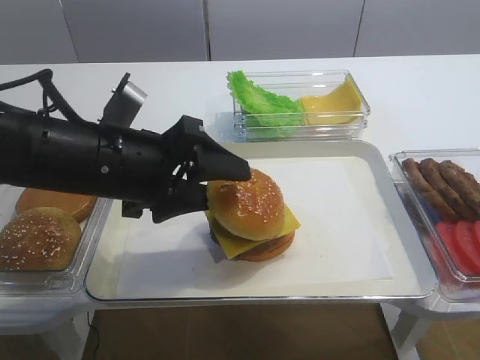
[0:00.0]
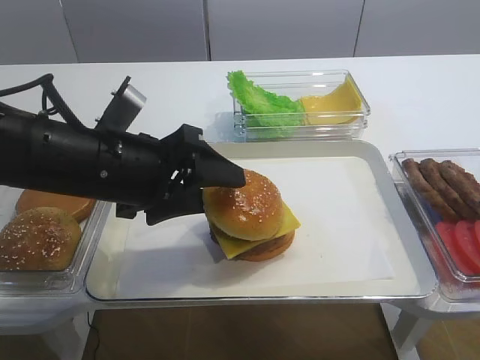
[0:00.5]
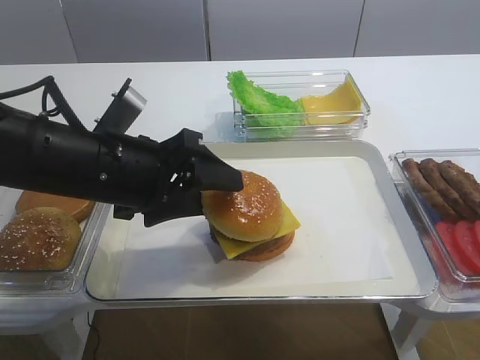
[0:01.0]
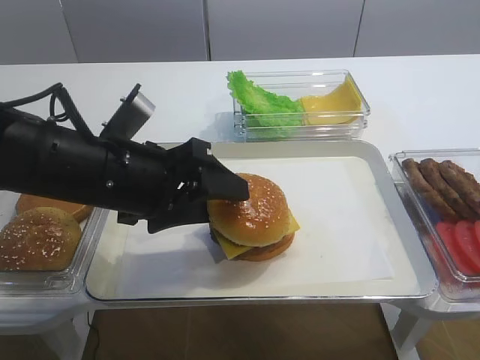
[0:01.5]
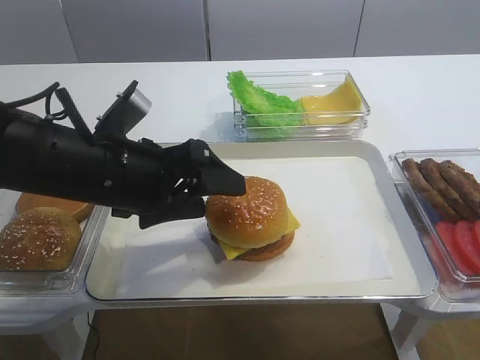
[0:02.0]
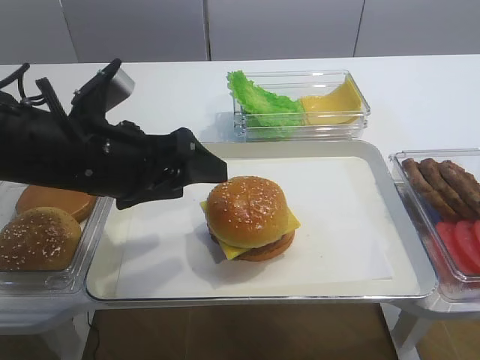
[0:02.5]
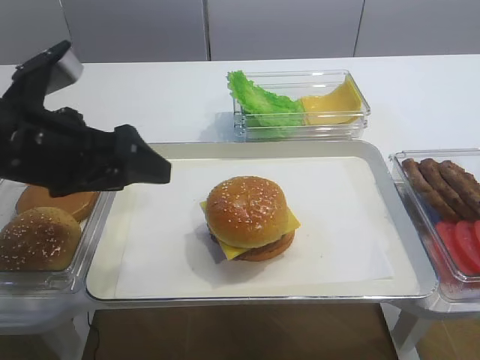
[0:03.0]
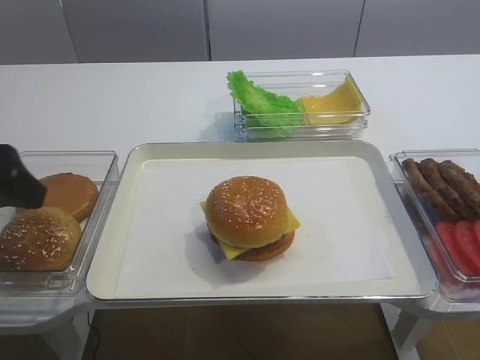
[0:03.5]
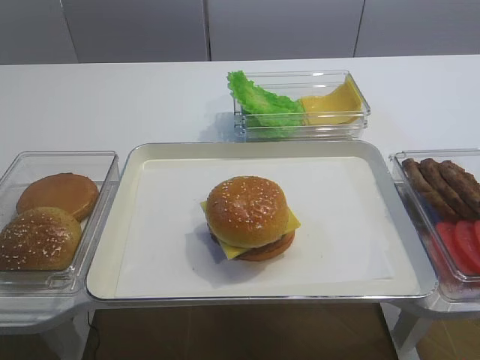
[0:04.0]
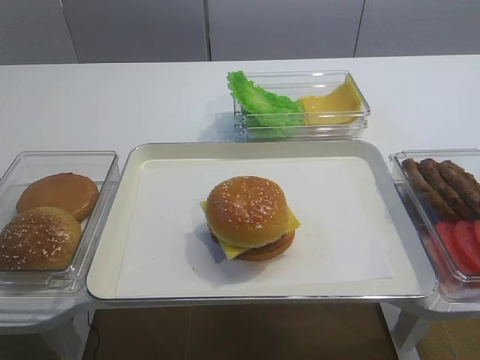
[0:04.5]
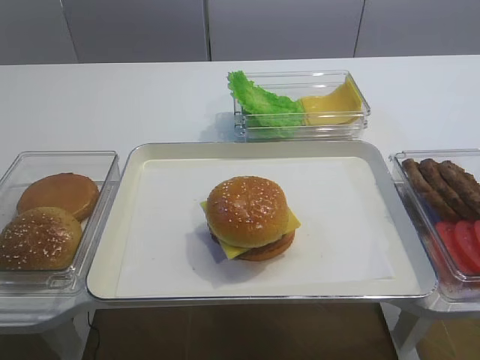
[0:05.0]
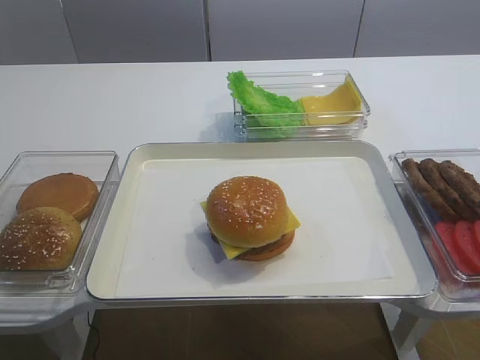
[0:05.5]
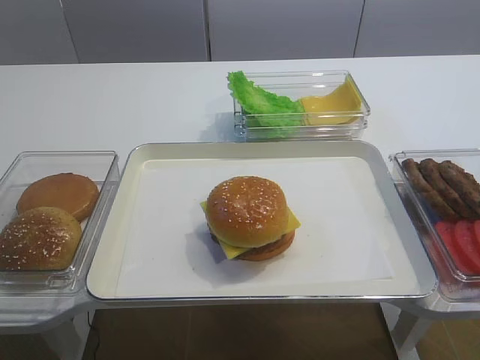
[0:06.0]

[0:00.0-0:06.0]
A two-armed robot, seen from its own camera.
Step, 0:00.0 to 0:02.0: Place the hamburger lid on the cheese slice with the left gripper.
0:00.0 to 0:02.0: The grippers make only small movements.
0:02.0 to 0:04.0: The left gripper goes roughly 25 cm to the left, backward and upward.

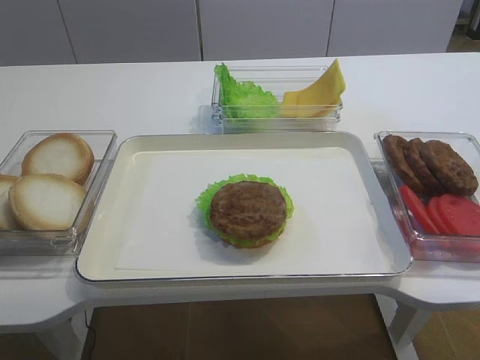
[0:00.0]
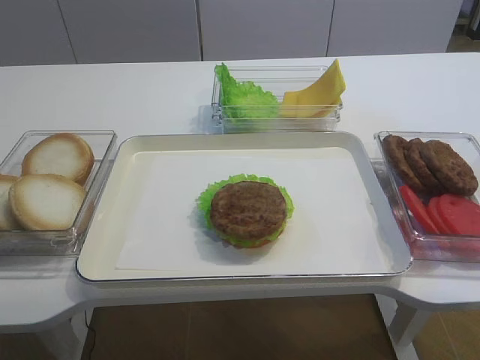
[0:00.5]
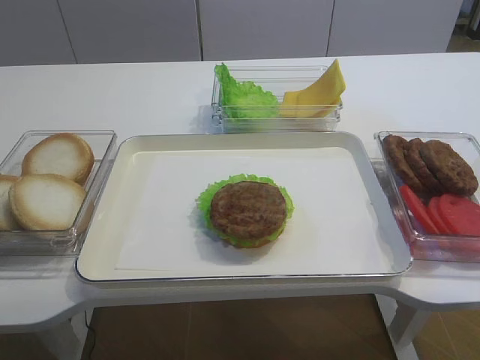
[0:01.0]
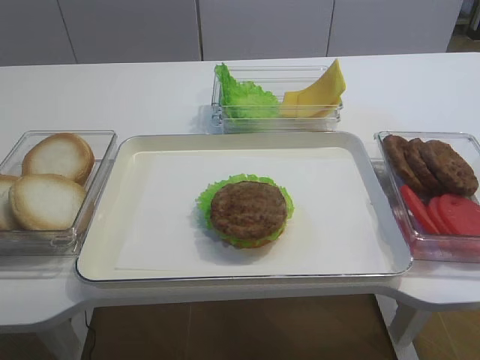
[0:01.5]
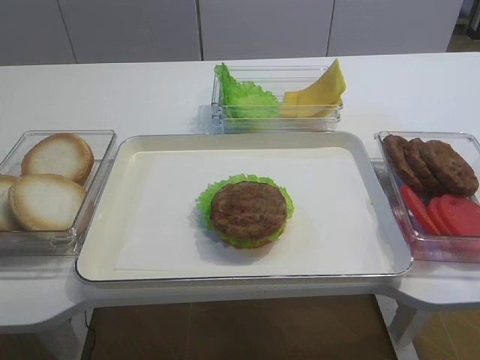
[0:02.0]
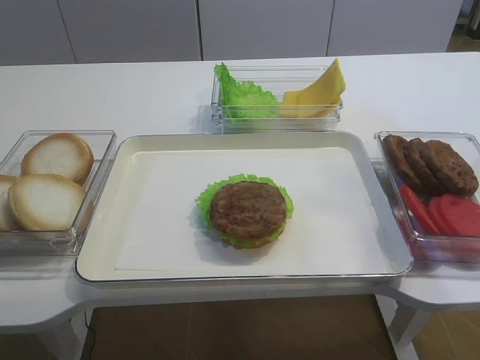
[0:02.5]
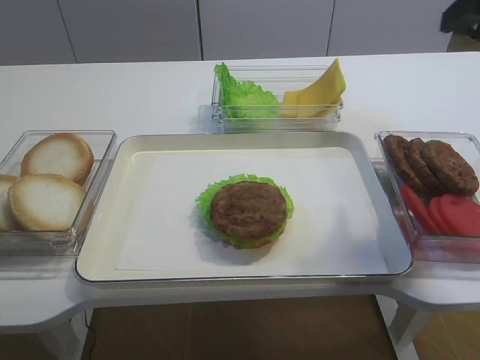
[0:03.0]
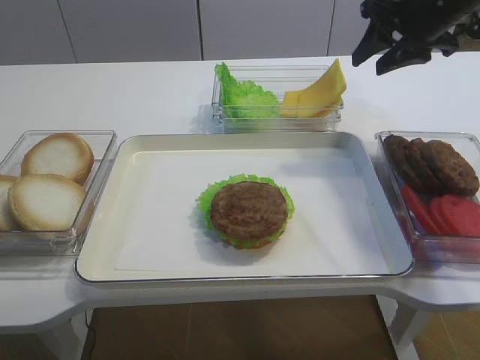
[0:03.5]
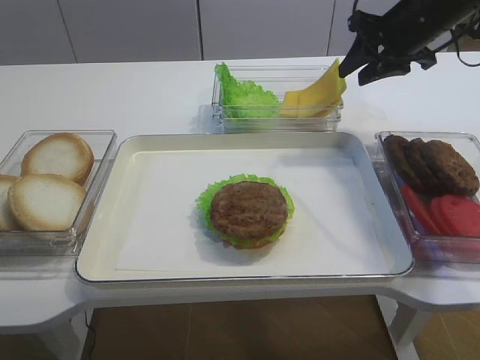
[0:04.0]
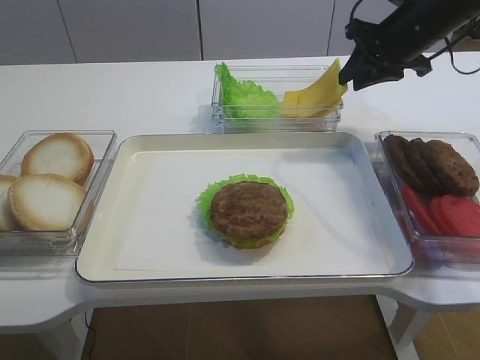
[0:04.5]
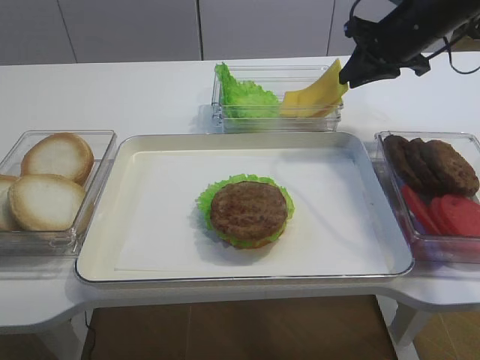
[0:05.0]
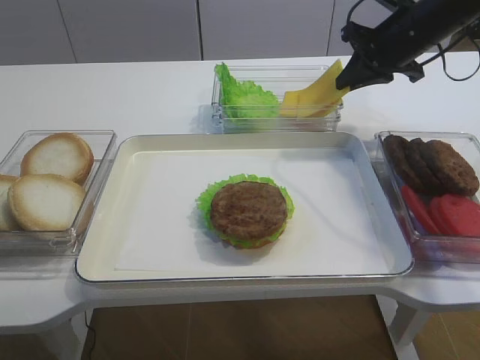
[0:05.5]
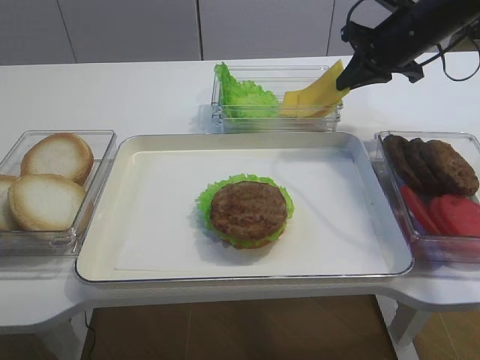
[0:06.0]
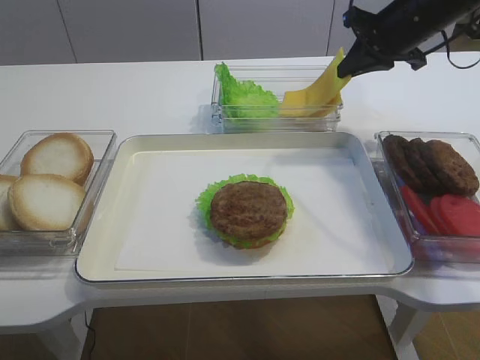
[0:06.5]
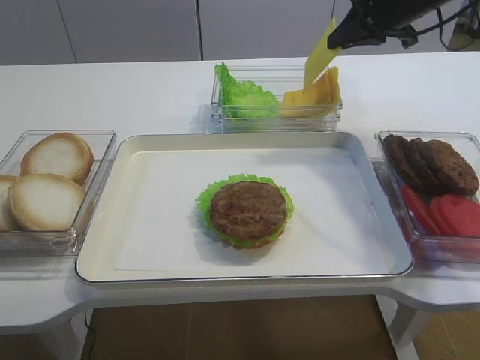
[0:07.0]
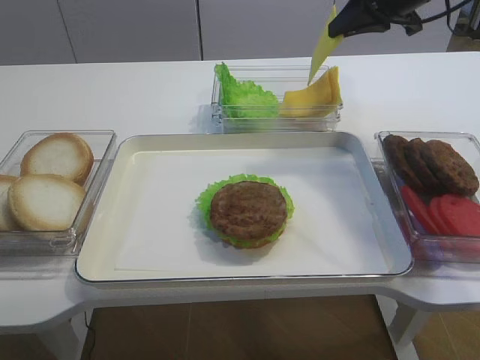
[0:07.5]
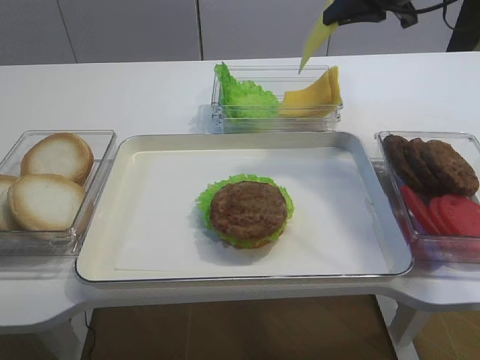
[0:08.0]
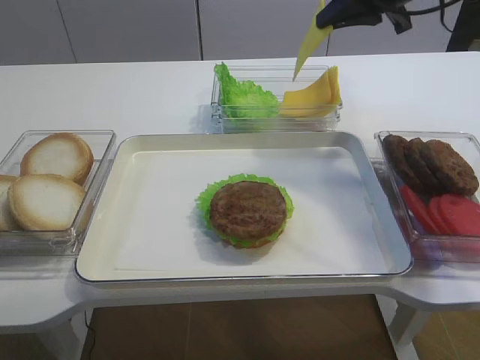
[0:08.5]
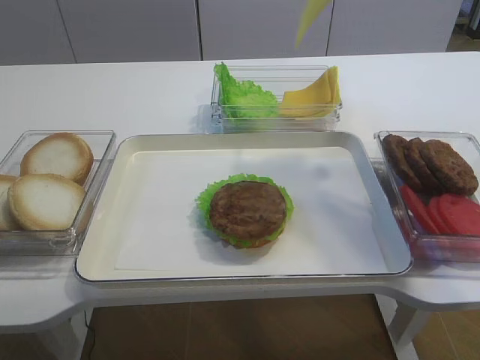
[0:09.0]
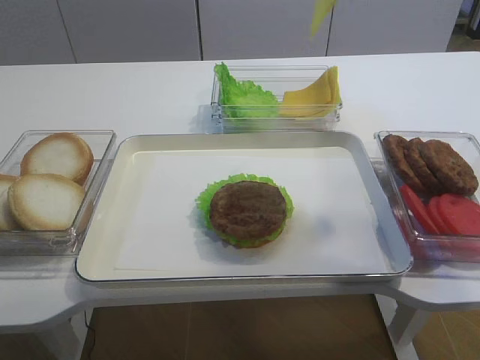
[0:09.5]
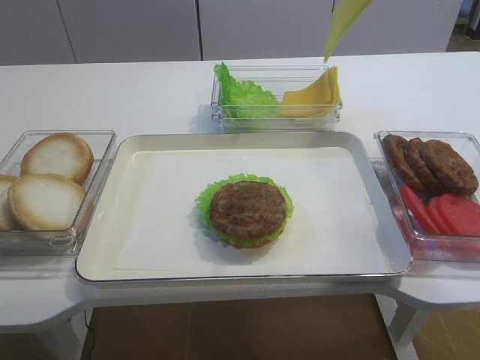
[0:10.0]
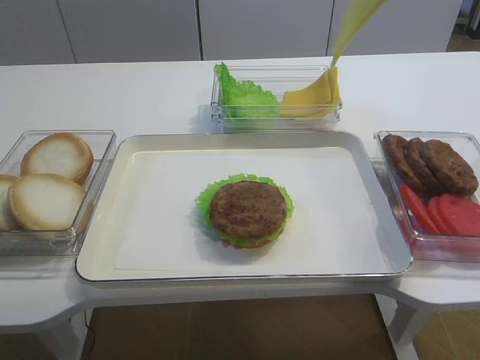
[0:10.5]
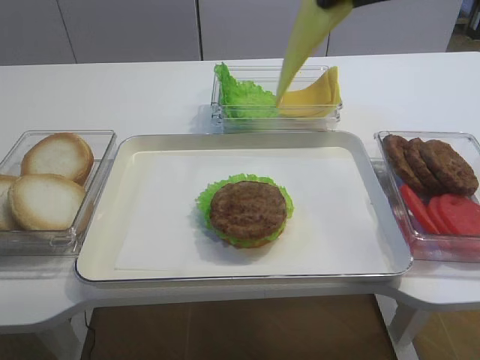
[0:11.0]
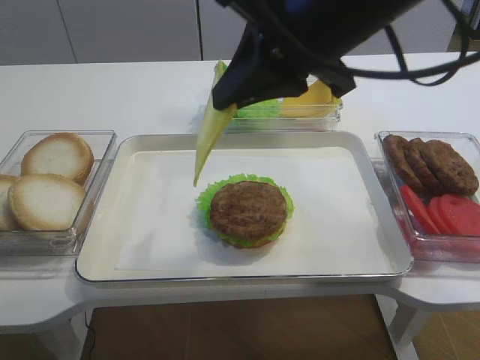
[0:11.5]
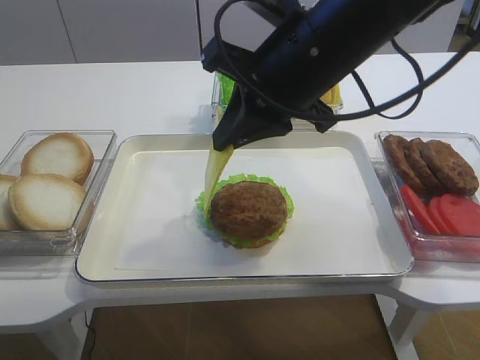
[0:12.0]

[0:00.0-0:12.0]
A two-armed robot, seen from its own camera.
Step, 0:00.0 to 0:07.0: Pick up the cheese slice with the right gripper.
0:02.0 to 0:04.0: The right gripper heads forward, covering about 50 cm.
0:04.0 to 0:06.0: The right gripper closes up.
0:06.0 to 0:08.0: The right gripper moves upward, approximately 10 cm.
0:08.0 to 0:10.0: The right gripper is displaced backward and upward by some 20 cm.
0:10.0 to 0:12.0: The right gripper shifts some 20 cm to the left and downward.

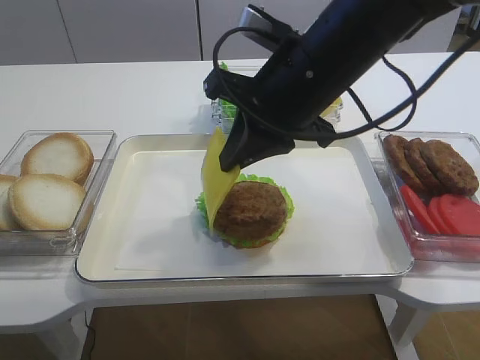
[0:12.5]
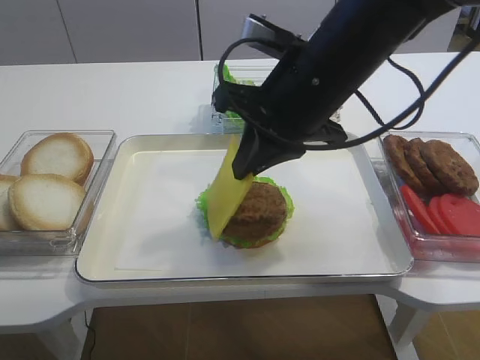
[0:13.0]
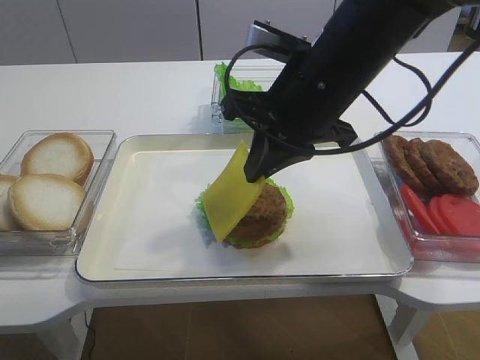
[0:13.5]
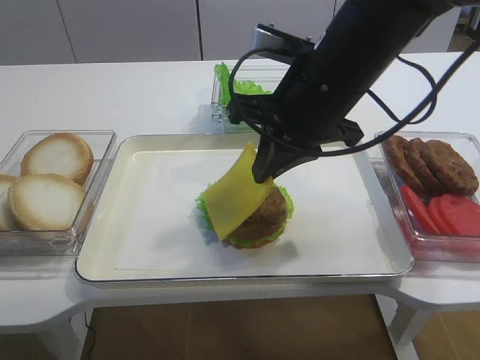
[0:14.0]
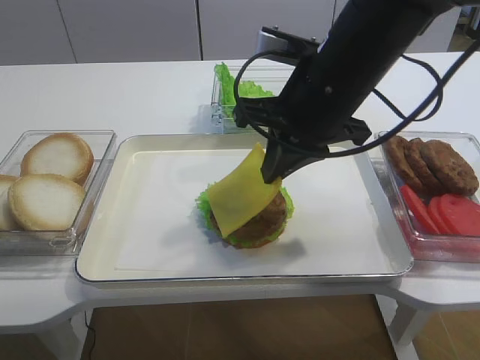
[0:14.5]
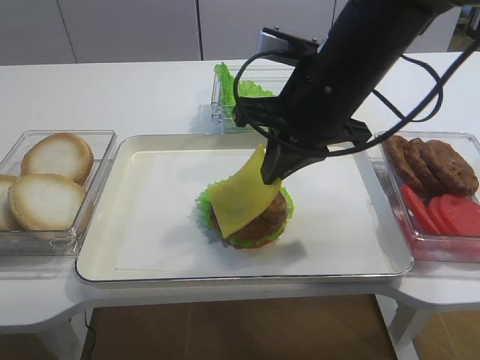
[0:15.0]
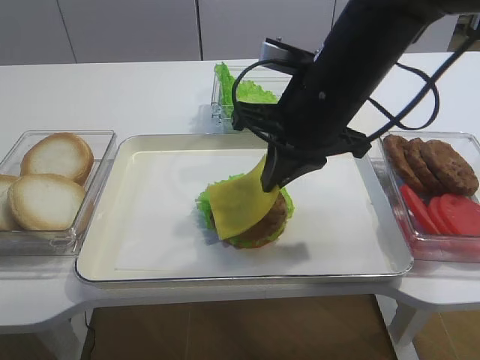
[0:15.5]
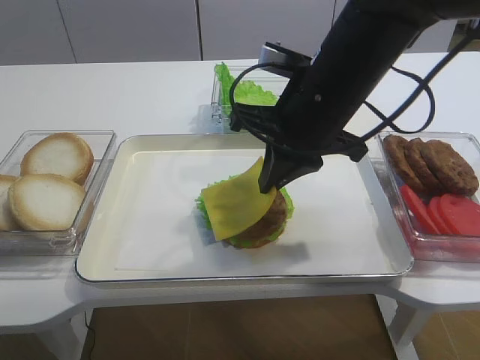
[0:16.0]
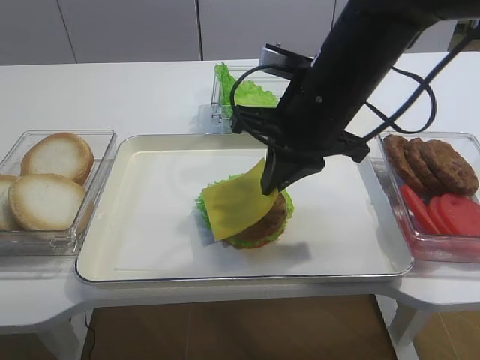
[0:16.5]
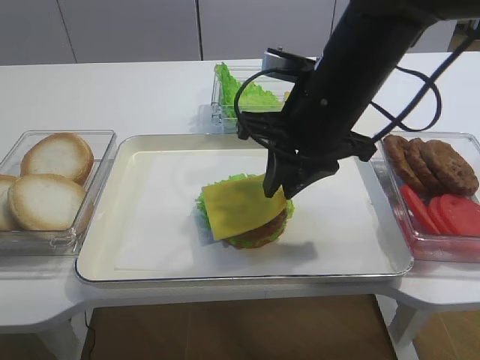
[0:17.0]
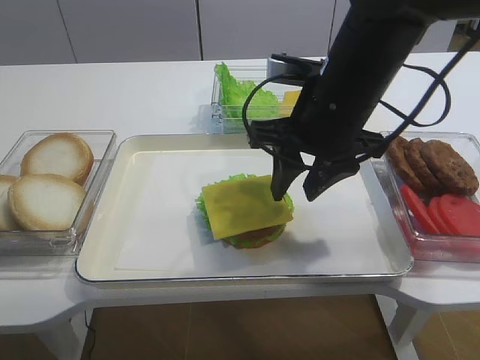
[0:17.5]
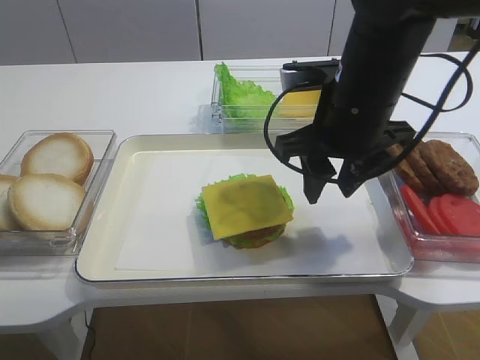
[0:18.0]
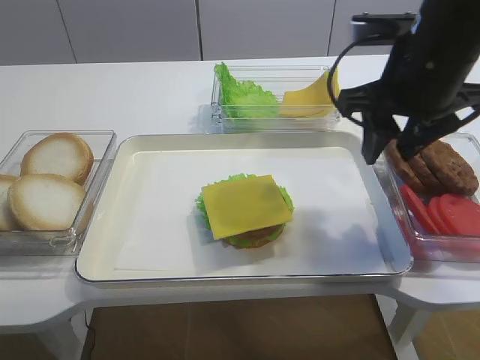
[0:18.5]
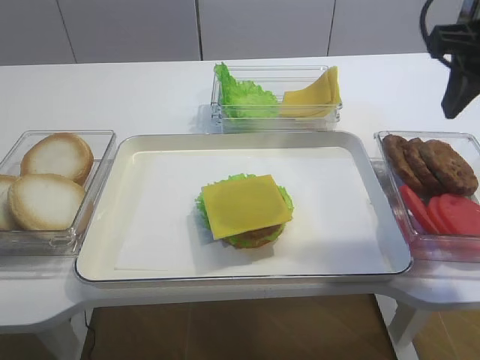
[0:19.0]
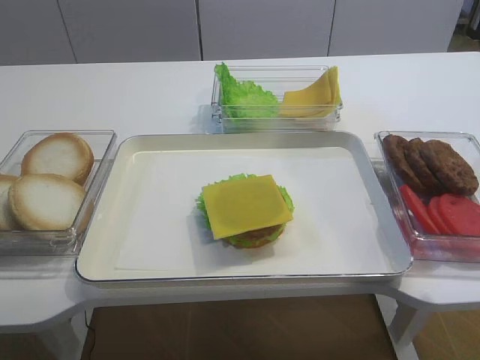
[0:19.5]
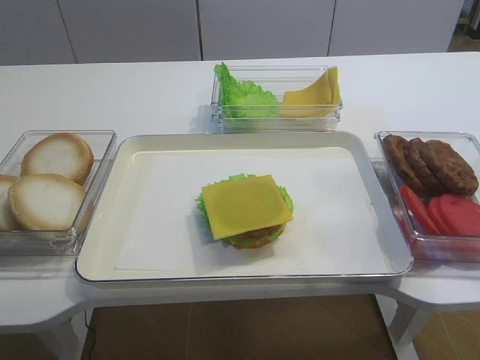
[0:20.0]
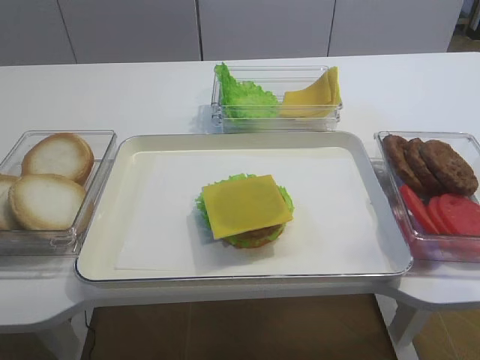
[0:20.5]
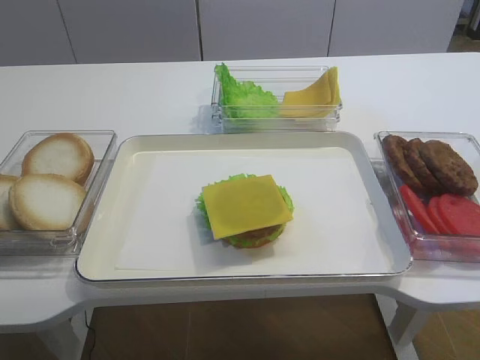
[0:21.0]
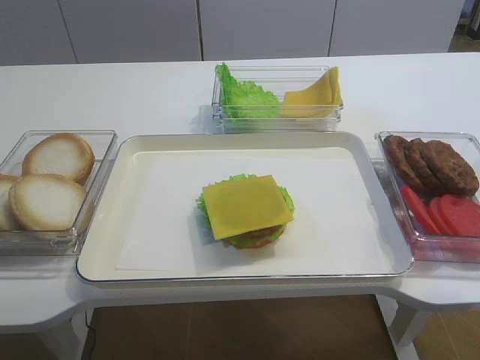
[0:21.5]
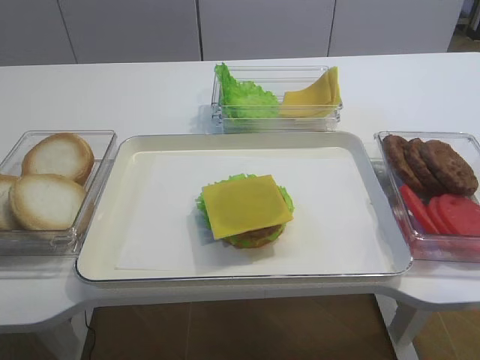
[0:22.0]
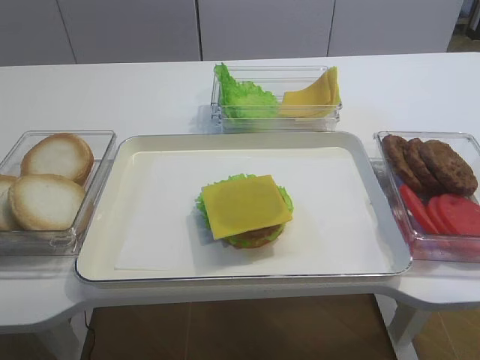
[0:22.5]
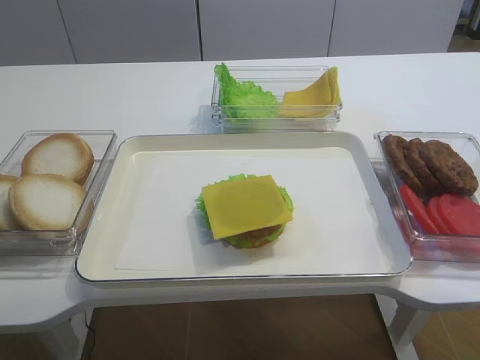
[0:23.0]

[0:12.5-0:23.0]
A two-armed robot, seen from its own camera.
Step, 0:12.5 to 0:18.0: Place the cheese slice on the cutlet with the right gripper.
0:12.5 to 0:16.5: The grippers stay close to where they were, moving slightly.
0:16.5 to 0:19.0: The right gripper is displaced to the right and upward by some 15 cm, and opens its fingers.
0:19.0 to 0:21.0: The right gripper goes about 30 cm backward.
